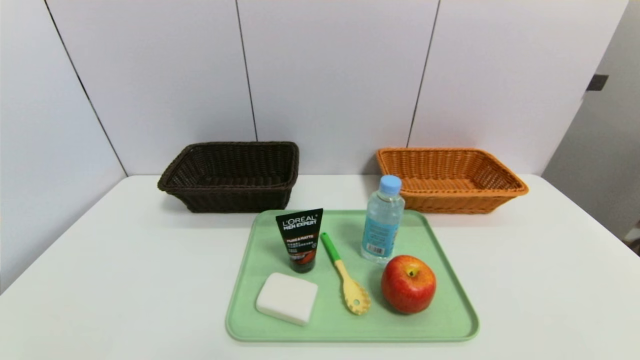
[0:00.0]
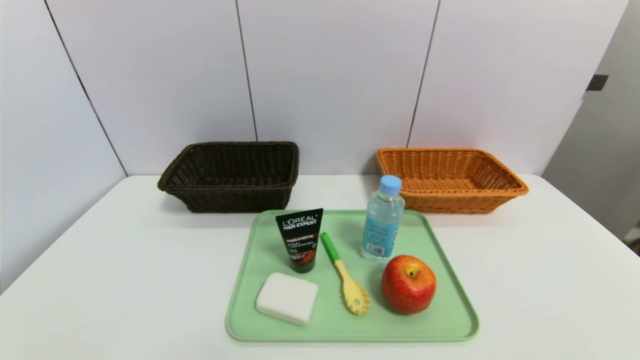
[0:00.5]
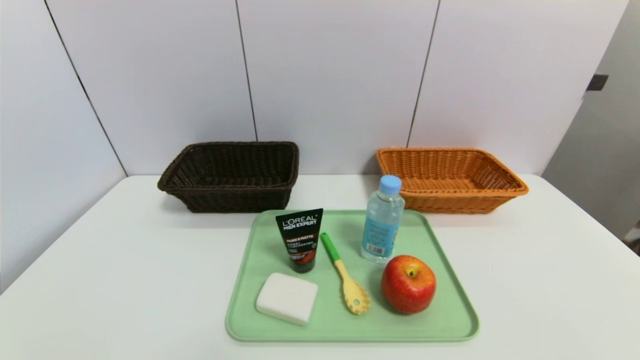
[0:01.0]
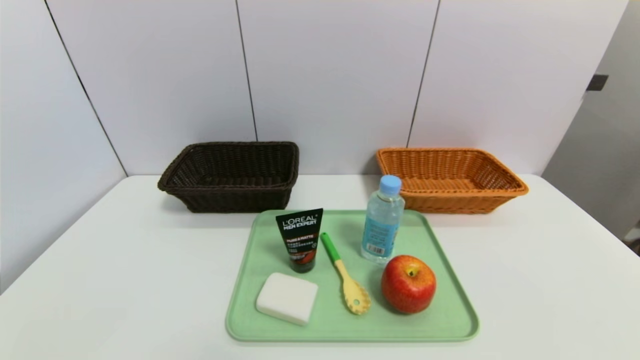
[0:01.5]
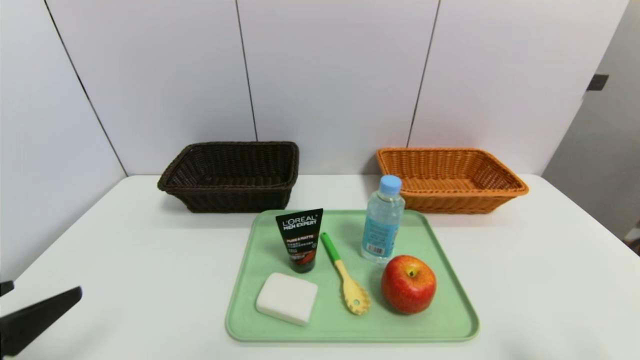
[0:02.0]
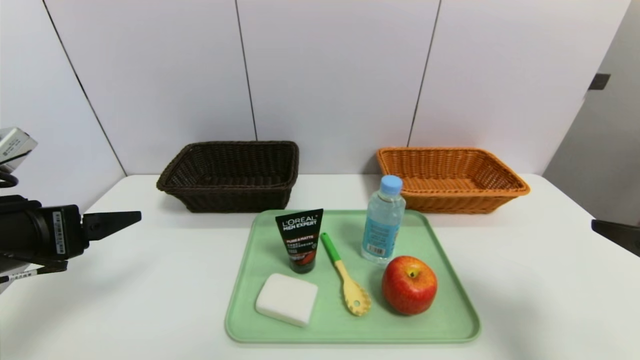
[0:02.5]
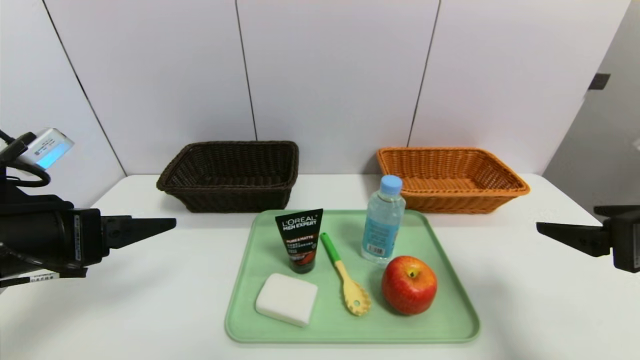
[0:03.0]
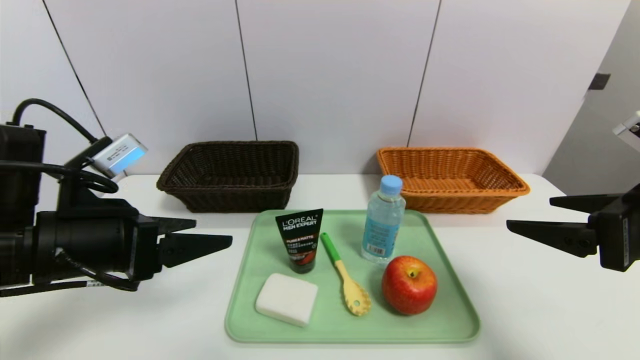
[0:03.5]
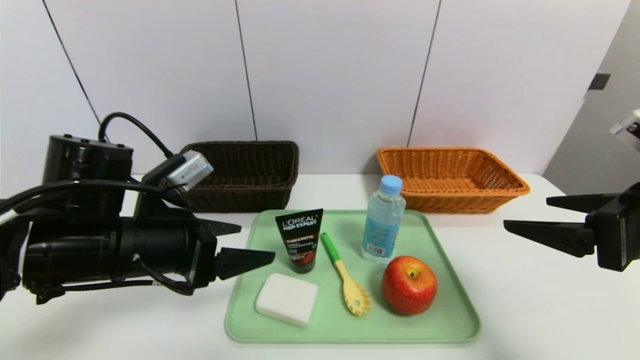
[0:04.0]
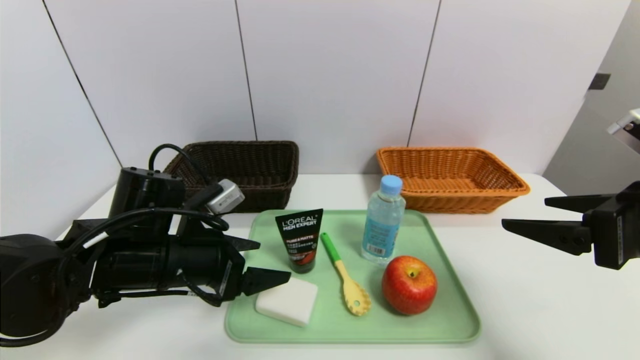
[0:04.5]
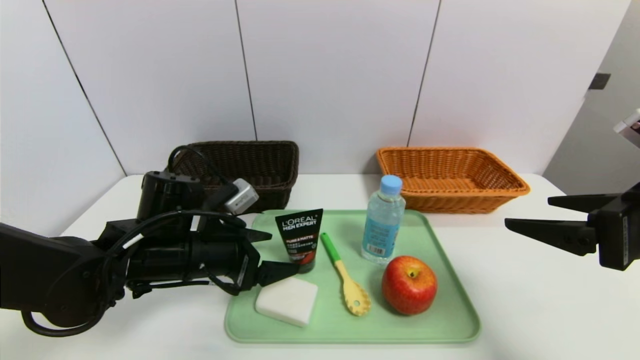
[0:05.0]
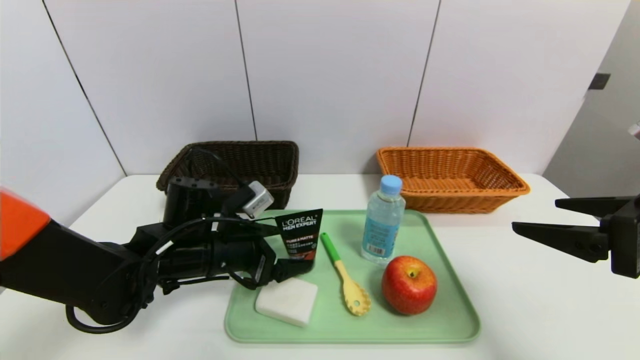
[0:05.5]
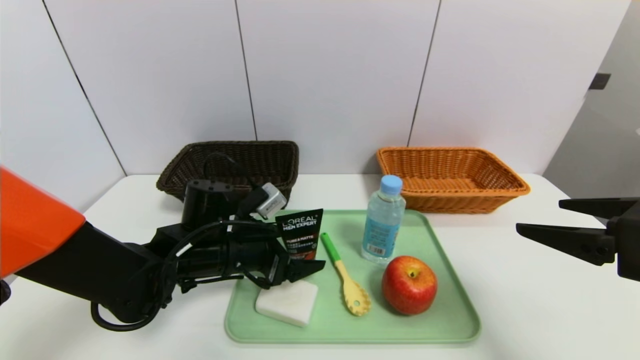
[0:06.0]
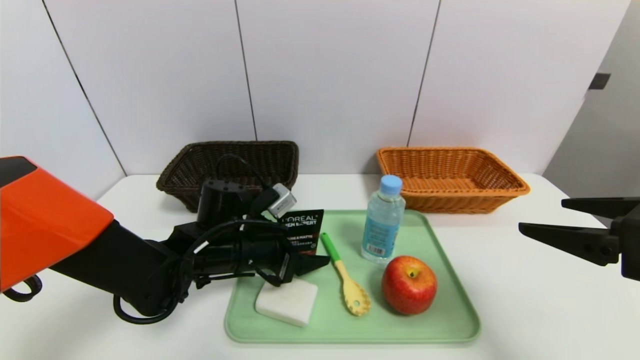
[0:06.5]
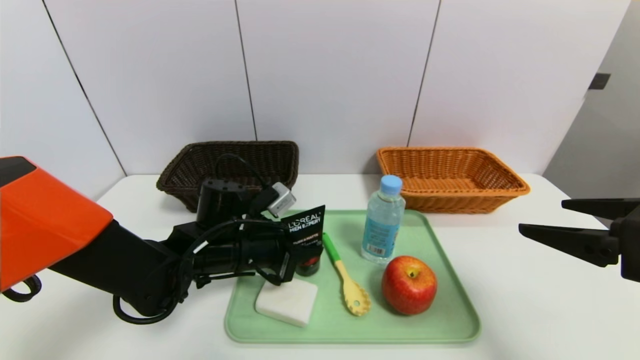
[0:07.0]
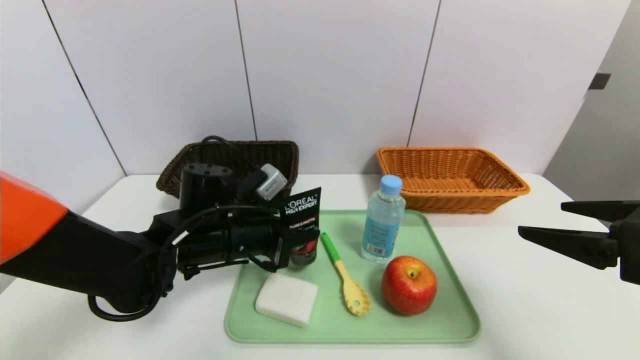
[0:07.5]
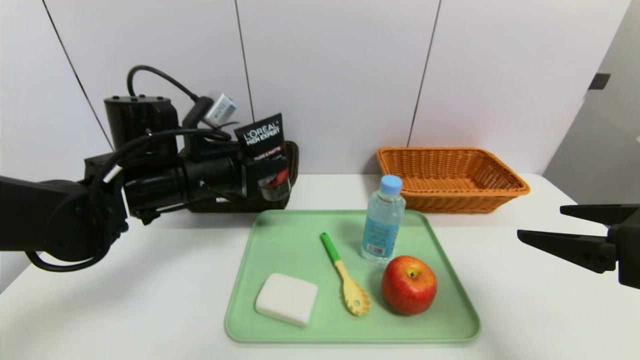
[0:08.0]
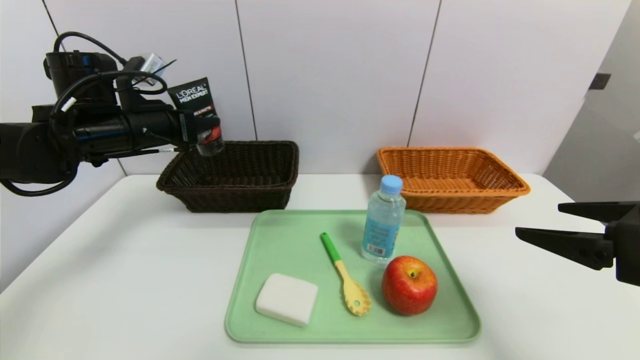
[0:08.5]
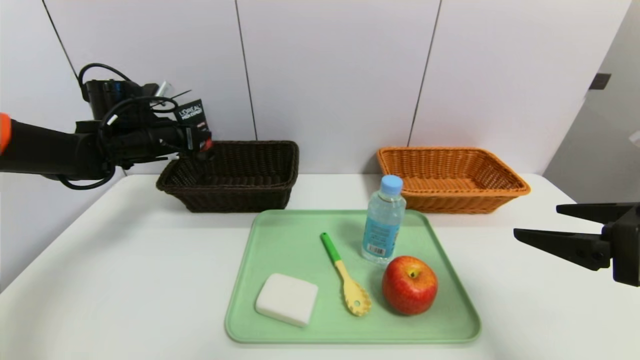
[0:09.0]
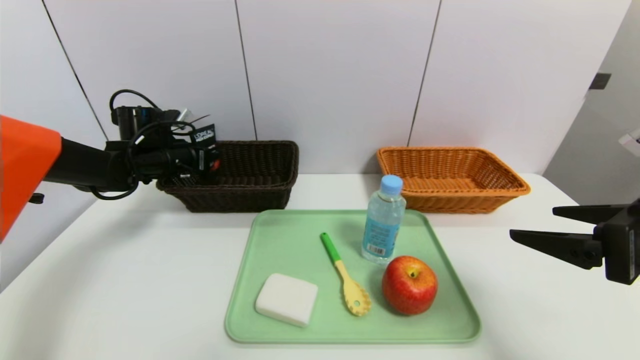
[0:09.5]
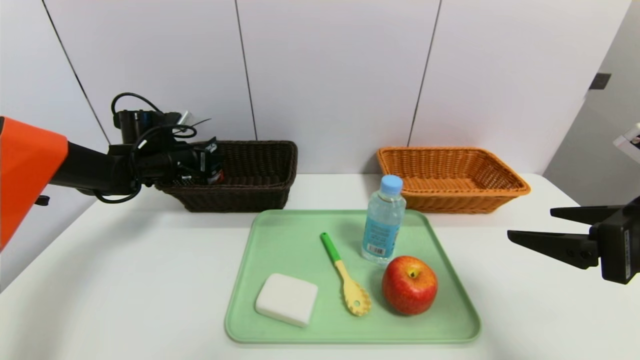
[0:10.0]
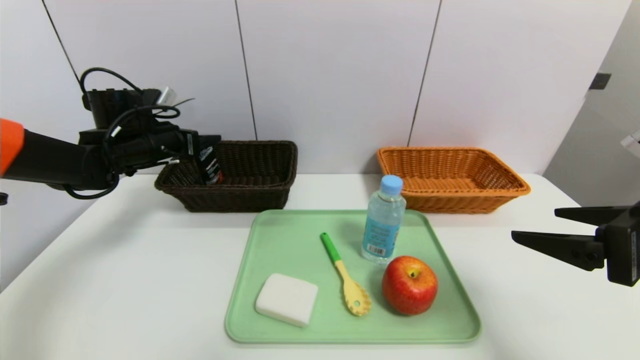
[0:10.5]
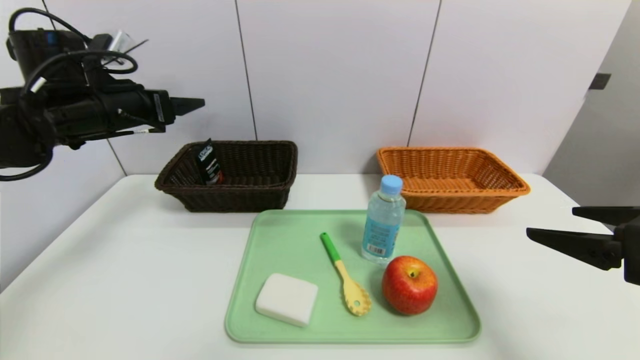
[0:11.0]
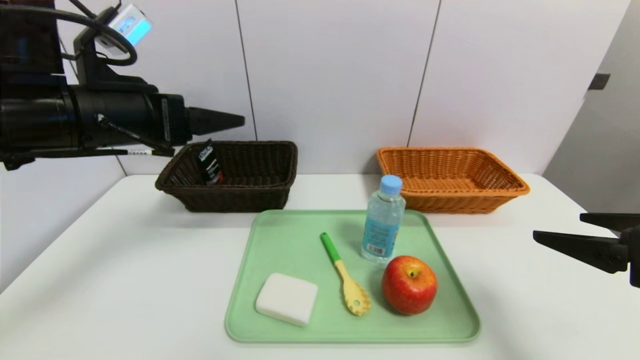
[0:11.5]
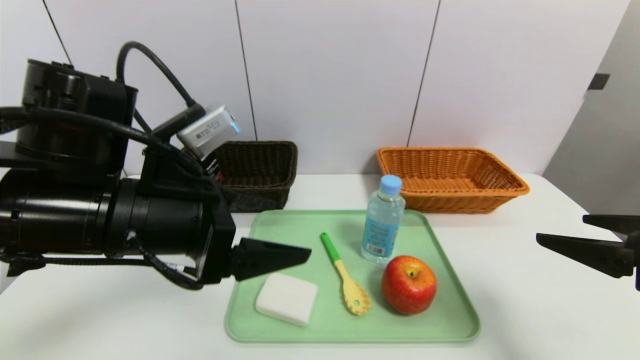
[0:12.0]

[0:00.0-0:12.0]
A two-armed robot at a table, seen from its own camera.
Task of the whole recording: place the food in the right basket with the right gripper, and place the non food items in the left basket with the left gripper.
Step, 0:00.0 to 0:10.5: Grasp the soft cleanser and put it in the left basket.
0:00.0 to 0:02.0: The left gripper is displaced upward and forward by some 15 cm.
0:02.0 to 0:04.0: The right gripper heads forward, covering roughly 10 cm; the left gripper heads forward and to the right, covering approximately 15 cm.
0:04.0 to 0:06.0: The left gripper shifts some 15 cm downward, forward and to the right.
0:06.0 to 0:08.0: The left gripper moves upward, about 10 cm, and closes its fingers.
0:08.0 to 0:10.0: The left gripper heads forward, to the left and downward, covering roughly 20 cm, and opens up.
0:10.0 to 0:12.0: The left gripper heads backward and to the right, covering some 30 cm, and opens up.

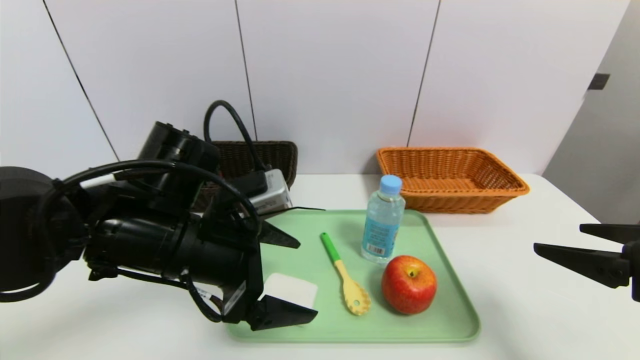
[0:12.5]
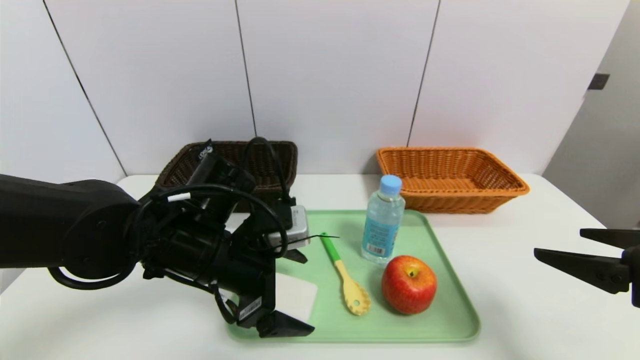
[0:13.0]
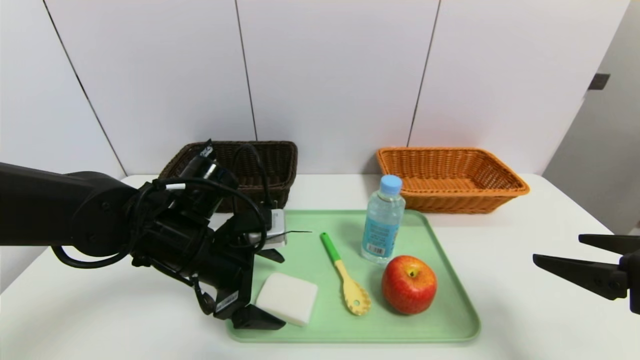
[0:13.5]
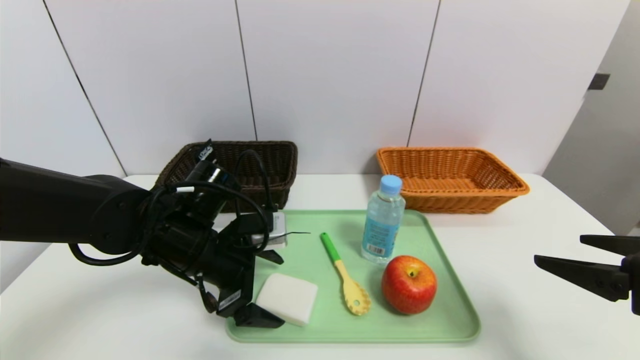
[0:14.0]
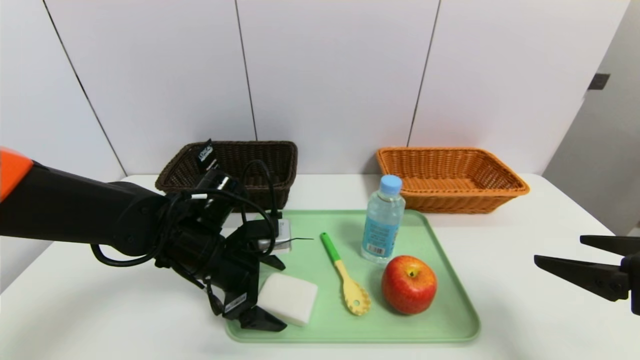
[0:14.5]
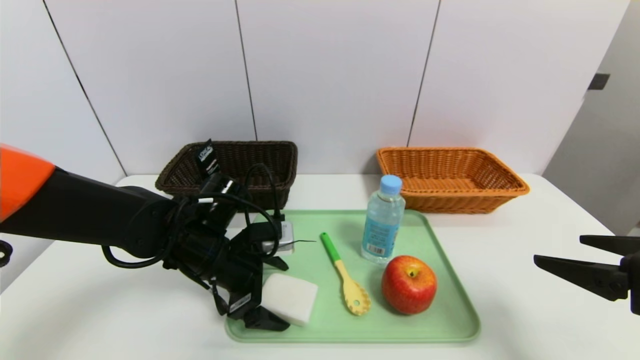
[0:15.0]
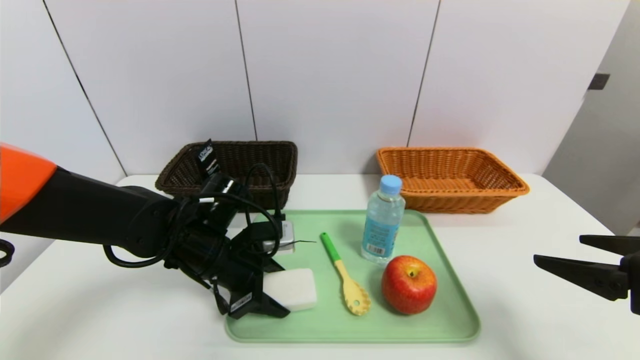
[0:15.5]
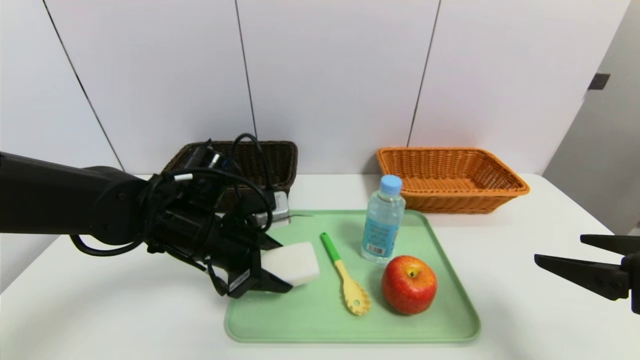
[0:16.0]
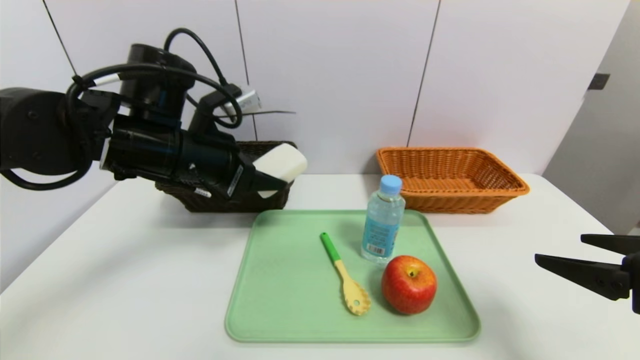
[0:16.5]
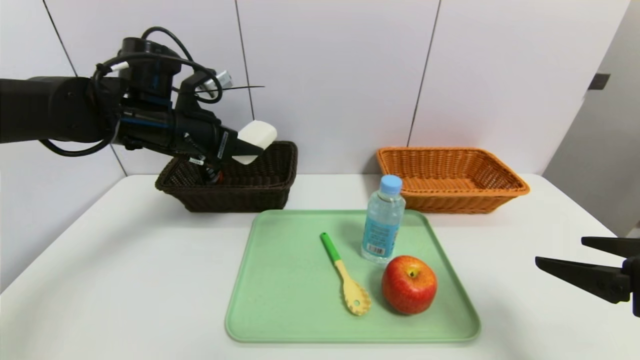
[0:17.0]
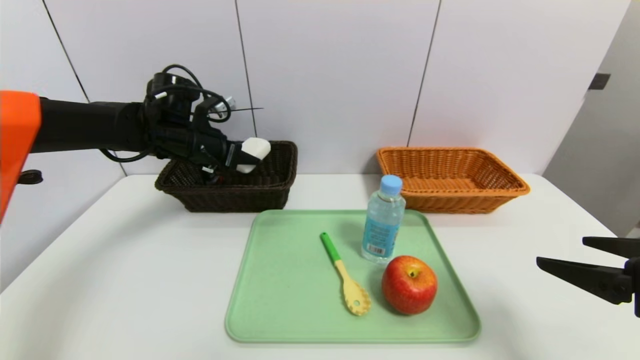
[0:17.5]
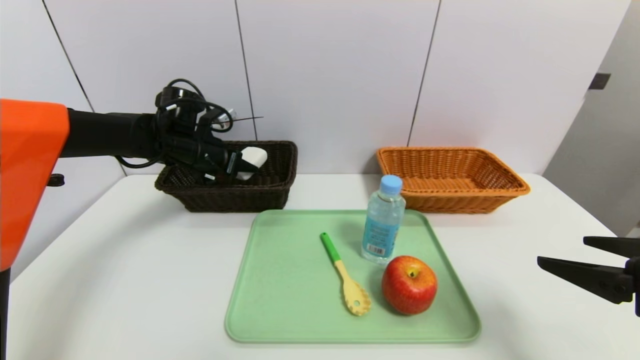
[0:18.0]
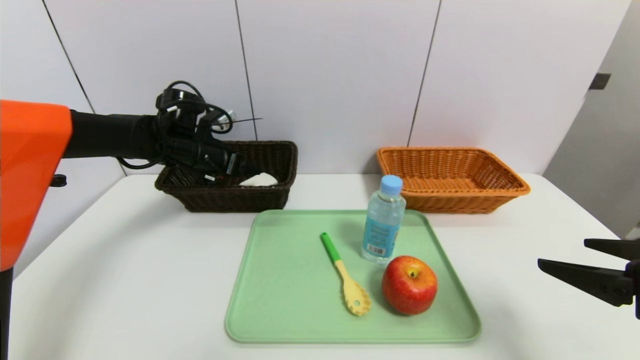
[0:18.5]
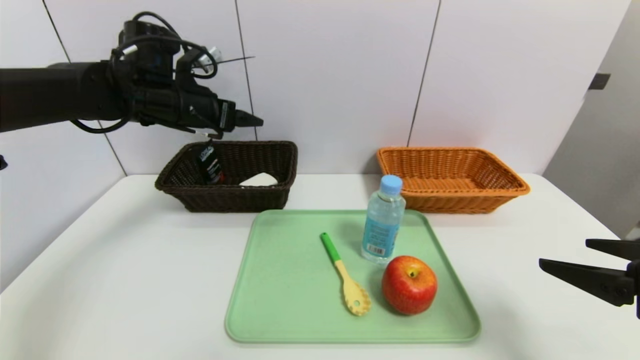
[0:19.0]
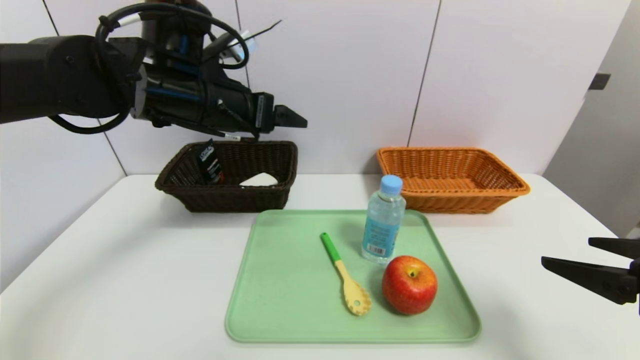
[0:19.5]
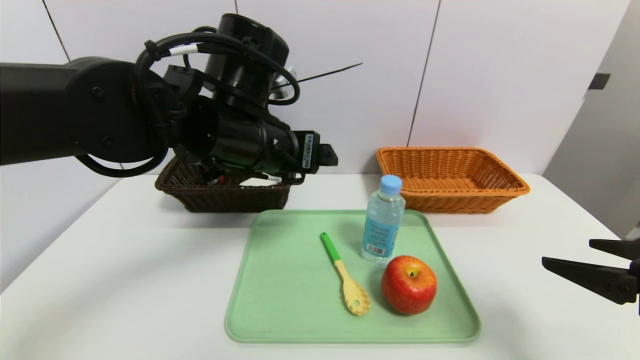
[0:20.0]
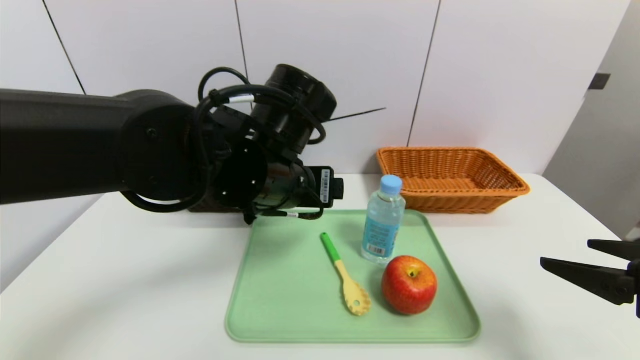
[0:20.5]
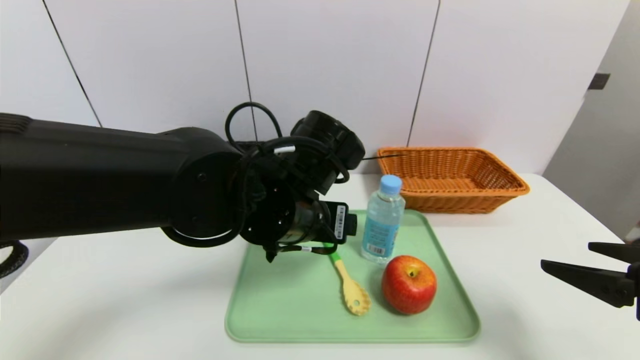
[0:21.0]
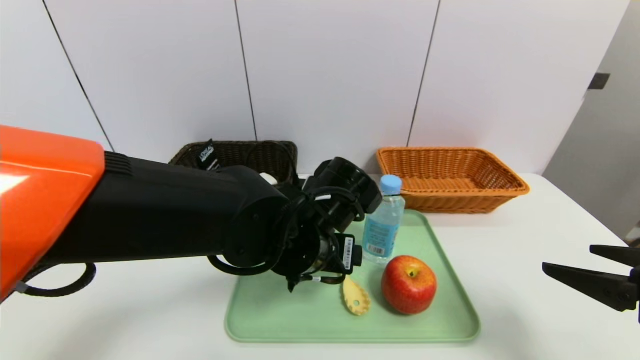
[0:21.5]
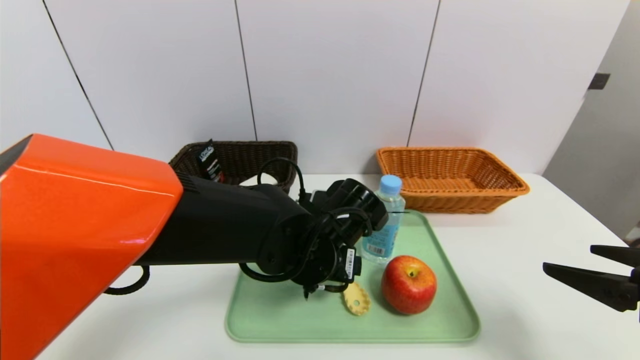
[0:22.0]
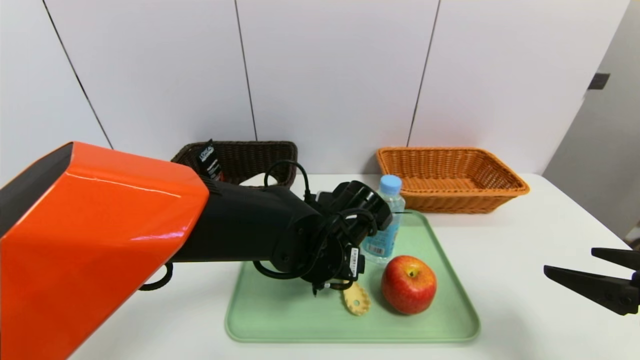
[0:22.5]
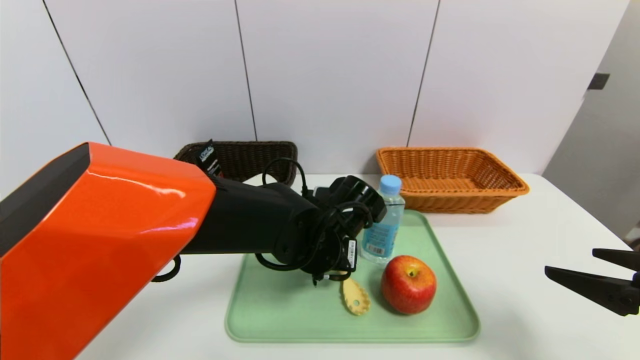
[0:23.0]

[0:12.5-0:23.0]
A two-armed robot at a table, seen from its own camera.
Task of the whole recording: place the food in the right basket with the right gripper, and place the non food items in the left basket with the left gripper.
Step, 0:12.5 to 0:18.5: Grasp the soap and put it in the left basket.
0:12.5 to 0:14.5: The left gripper moves downward and forward, approximately 10 cm.
0:14.5 to 0:16.5: The left gripper moves upward, some 15 cm, and closes up.
0:16.5 to 0:19.0: The left gripper travels forward by approximately 10 cm, and opens its fingers.
0:19.0 to 0:21.0: The left gripper is displaced to the right, backward and downward by roughly 25 cm.
0:21.0 to 0:23.0: The left gripper shifts roughly 10 cm downward.
